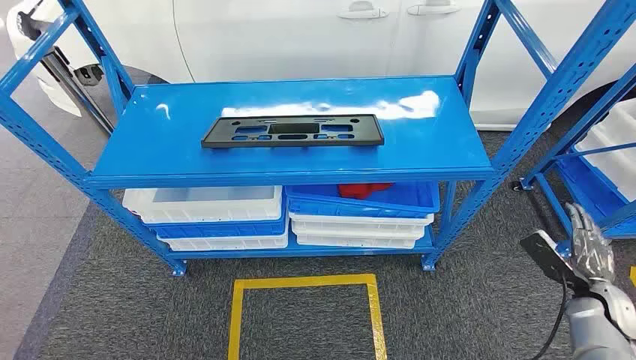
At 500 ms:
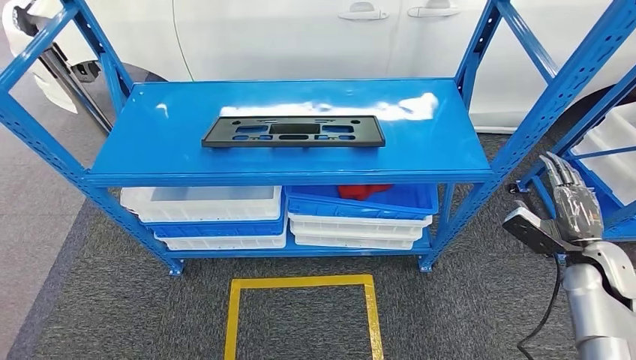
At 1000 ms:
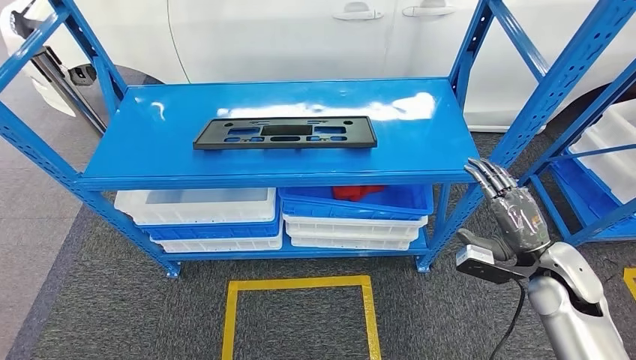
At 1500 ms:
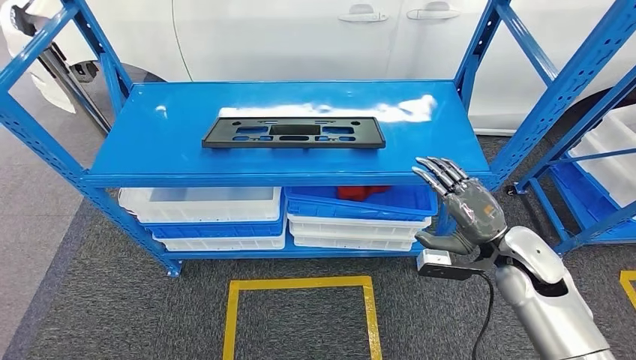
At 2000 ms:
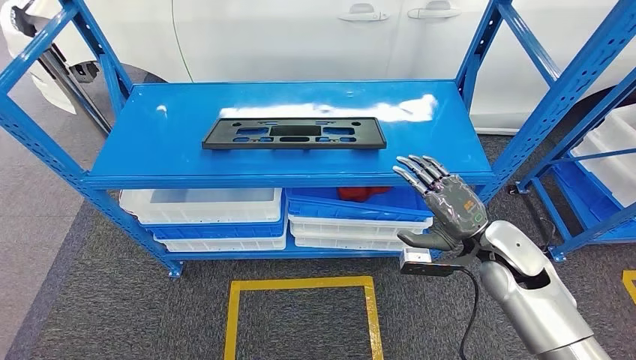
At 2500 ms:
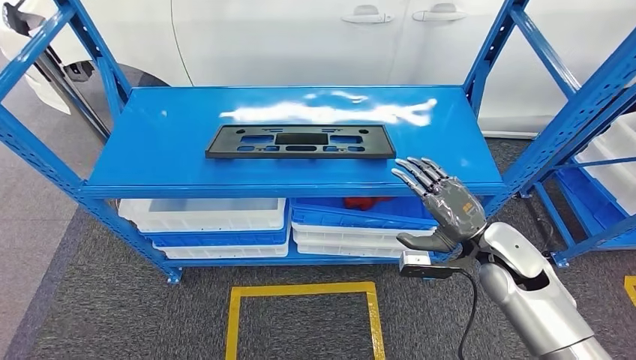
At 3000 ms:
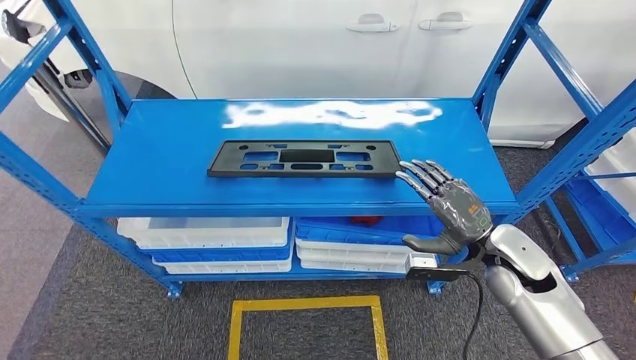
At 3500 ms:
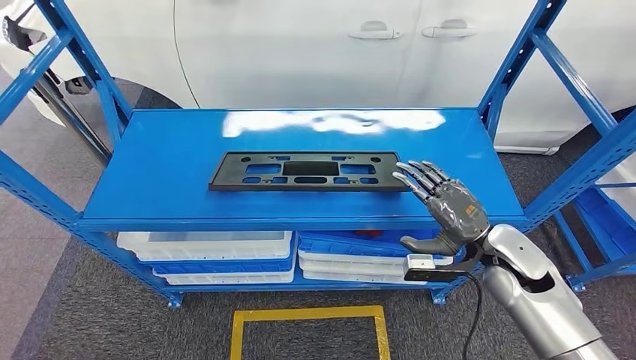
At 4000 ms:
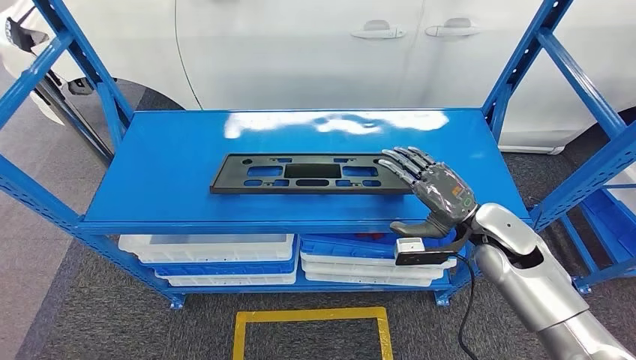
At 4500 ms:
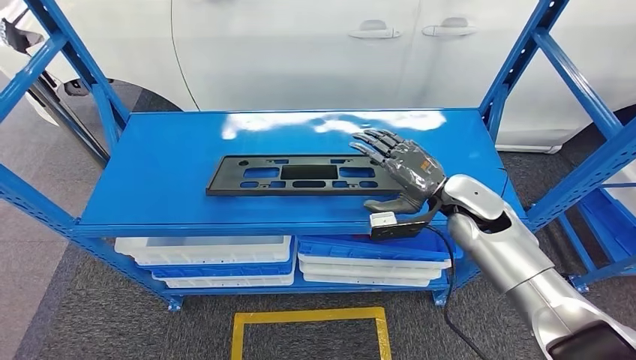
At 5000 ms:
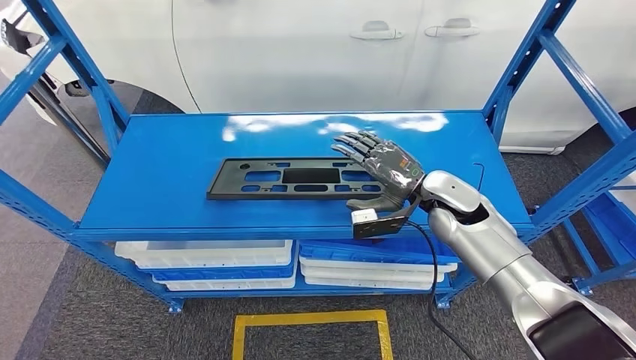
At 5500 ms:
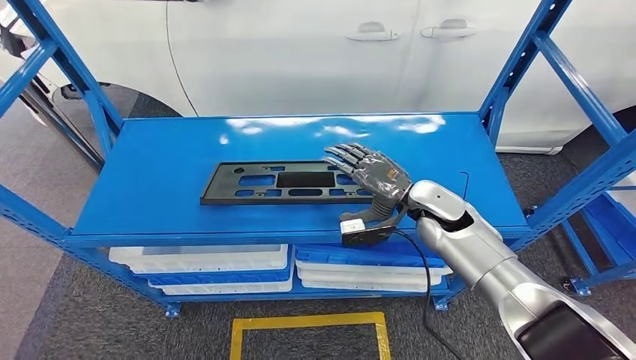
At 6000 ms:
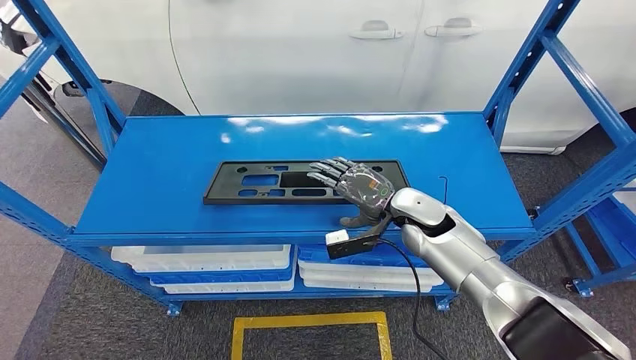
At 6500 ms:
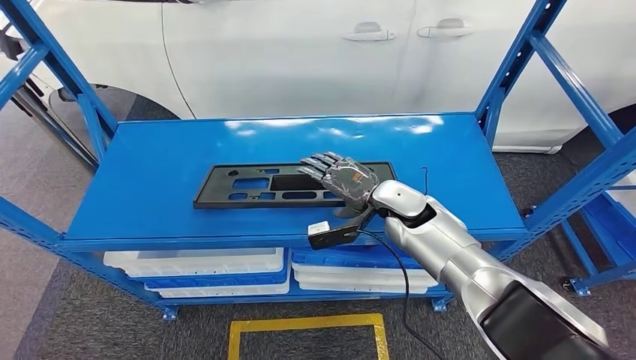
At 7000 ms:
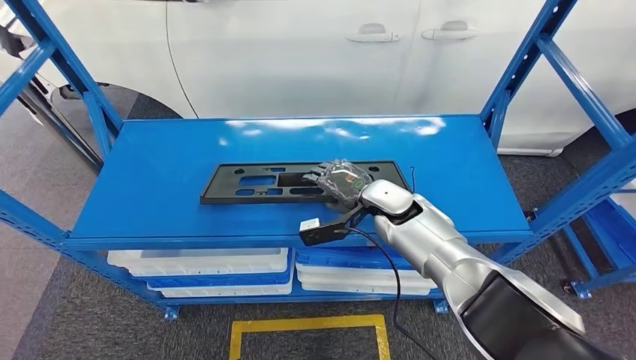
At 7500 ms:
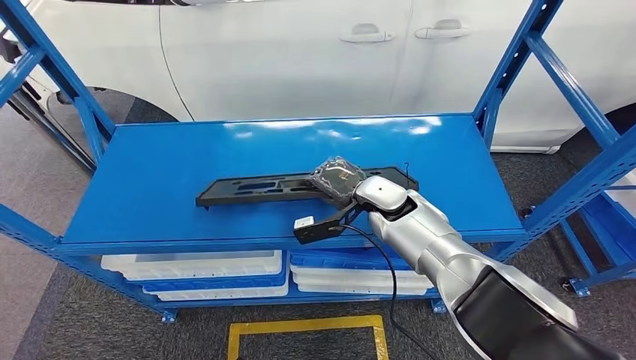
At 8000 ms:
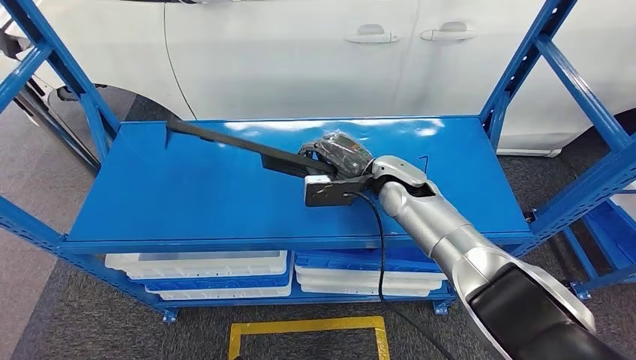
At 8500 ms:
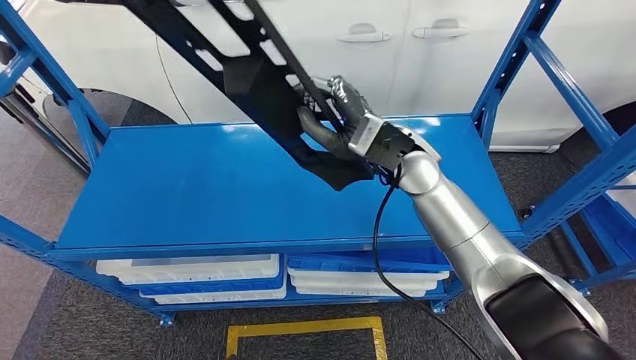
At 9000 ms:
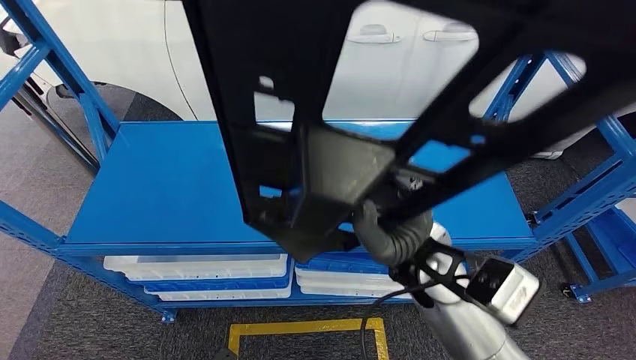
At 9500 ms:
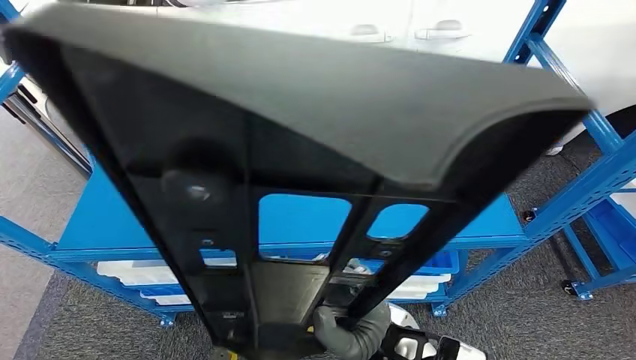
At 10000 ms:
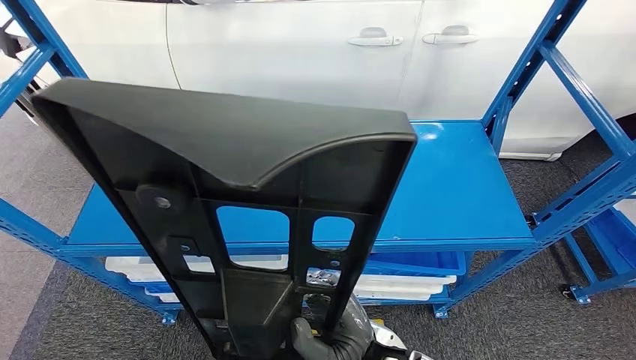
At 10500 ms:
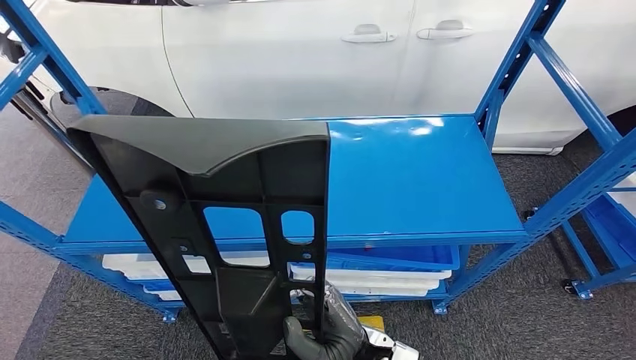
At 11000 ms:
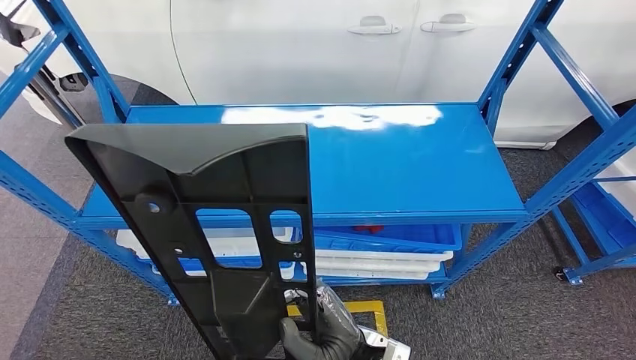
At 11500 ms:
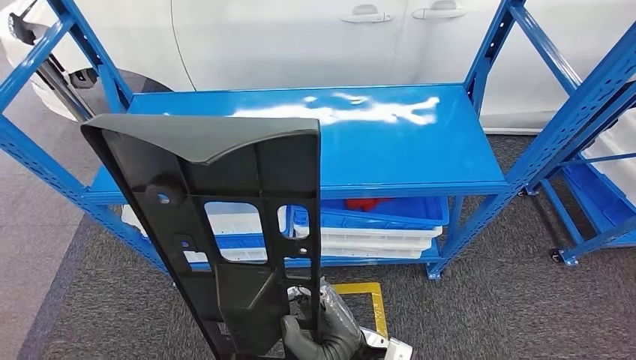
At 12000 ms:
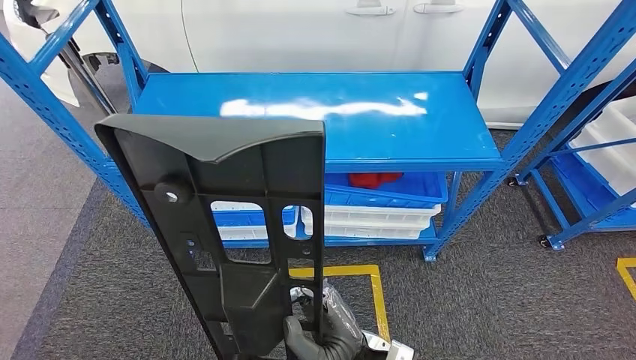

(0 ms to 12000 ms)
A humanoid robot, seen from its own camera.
Step, 0 ms - 9000 ms: Pick up the large material from the shelf.

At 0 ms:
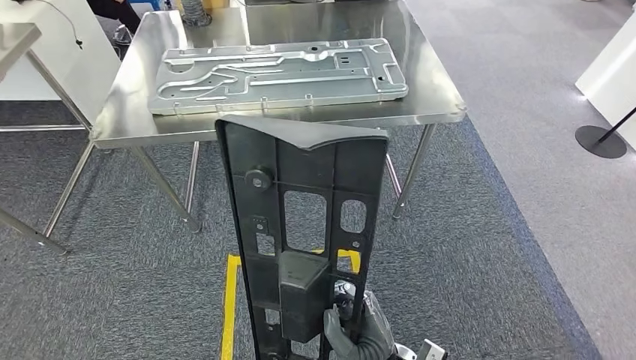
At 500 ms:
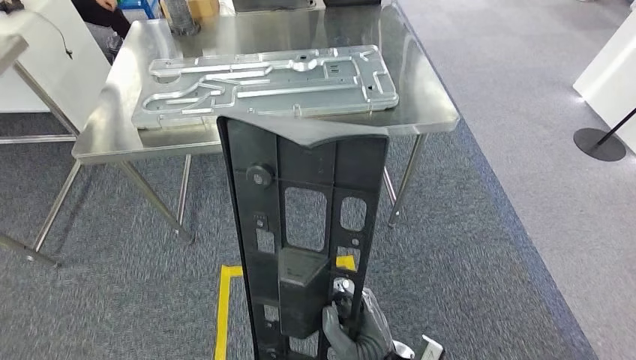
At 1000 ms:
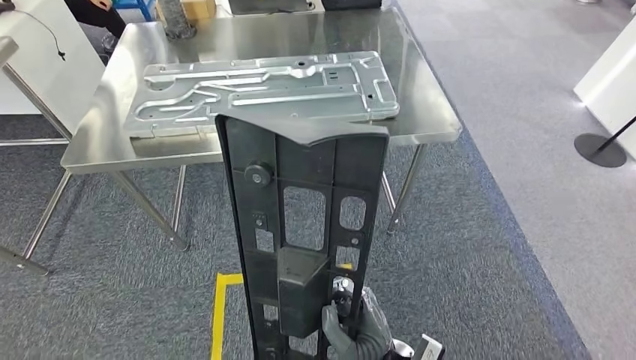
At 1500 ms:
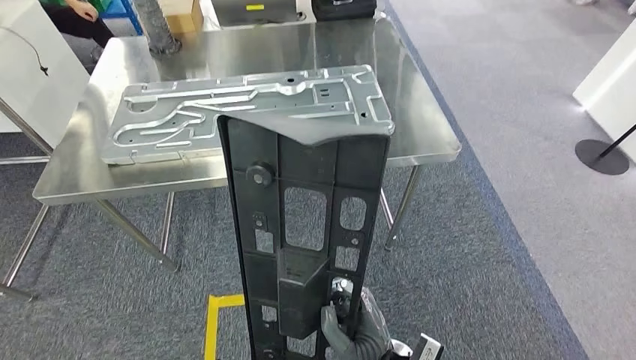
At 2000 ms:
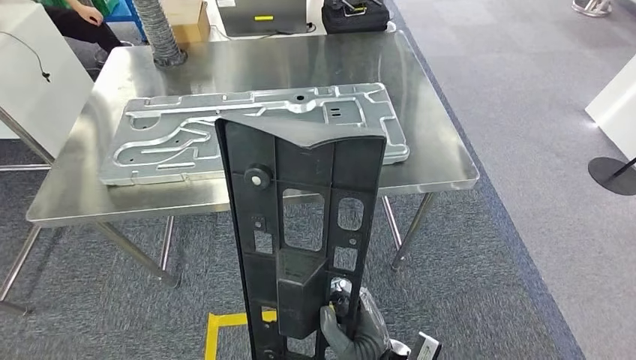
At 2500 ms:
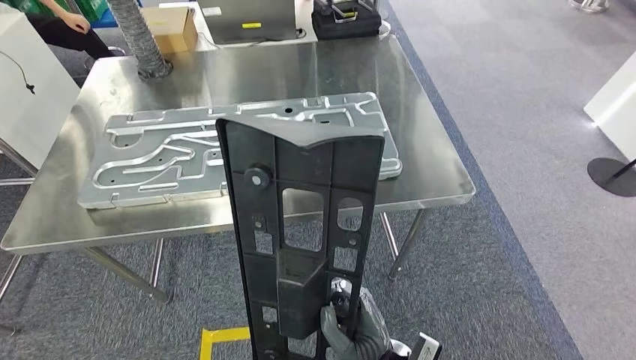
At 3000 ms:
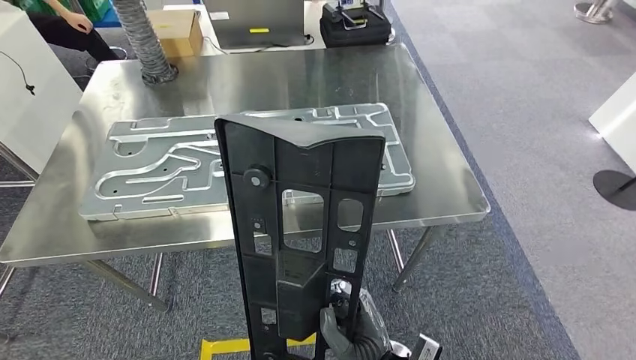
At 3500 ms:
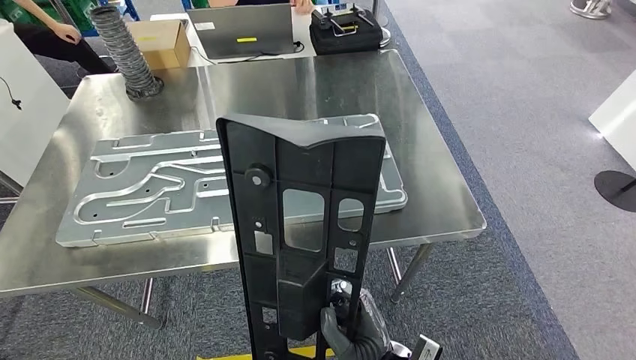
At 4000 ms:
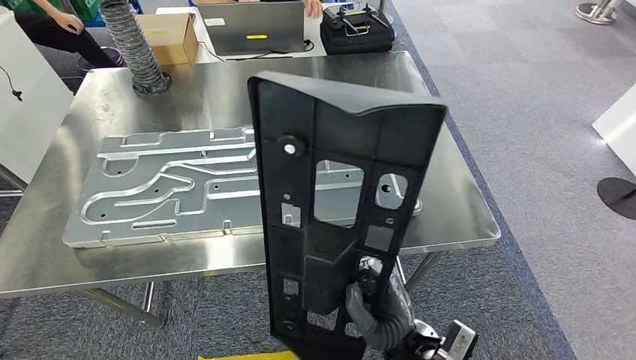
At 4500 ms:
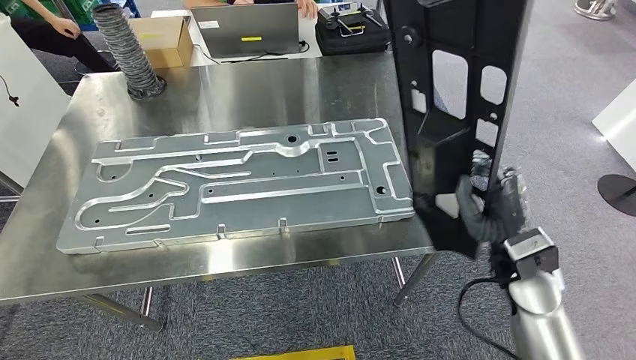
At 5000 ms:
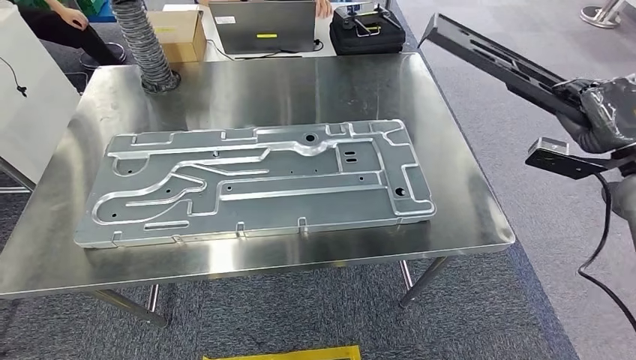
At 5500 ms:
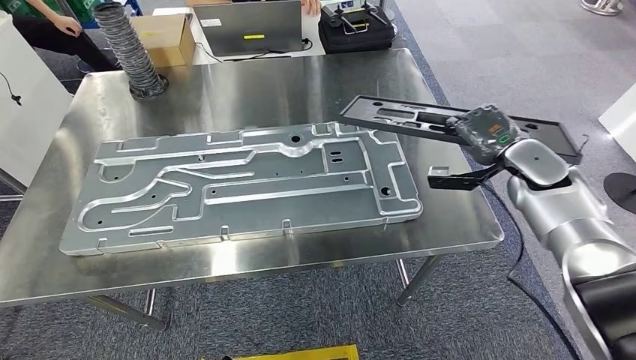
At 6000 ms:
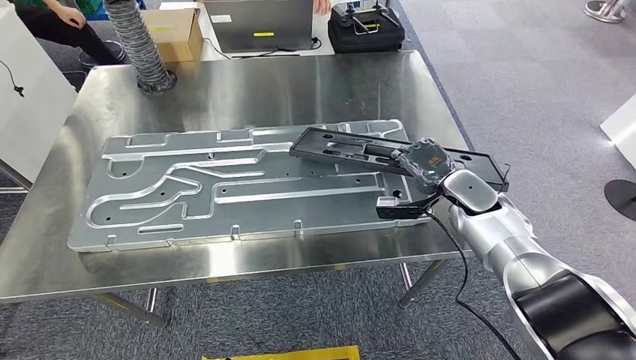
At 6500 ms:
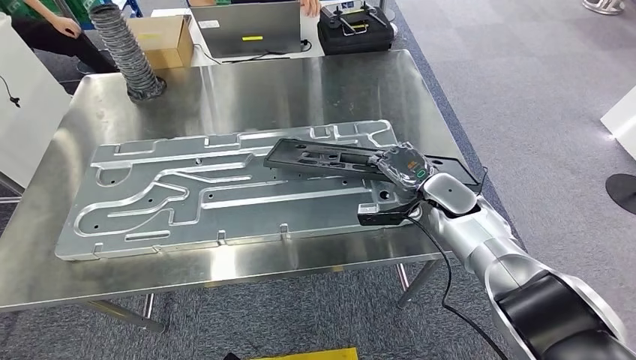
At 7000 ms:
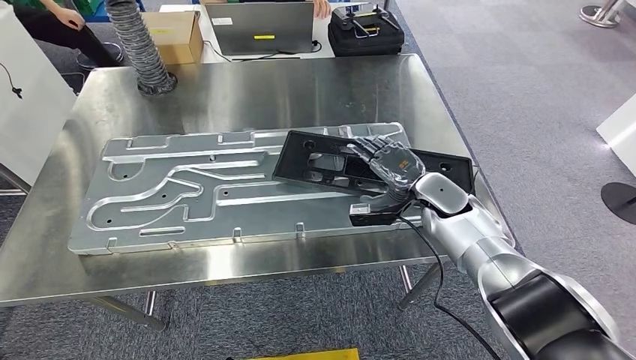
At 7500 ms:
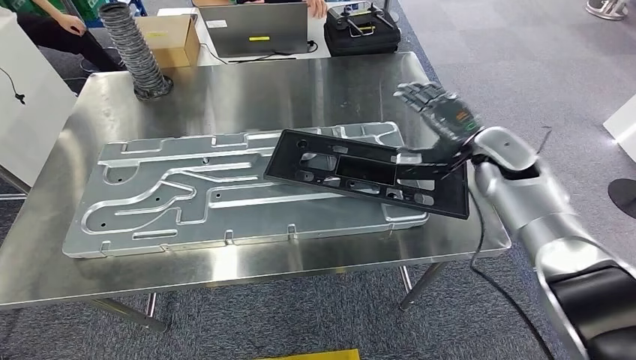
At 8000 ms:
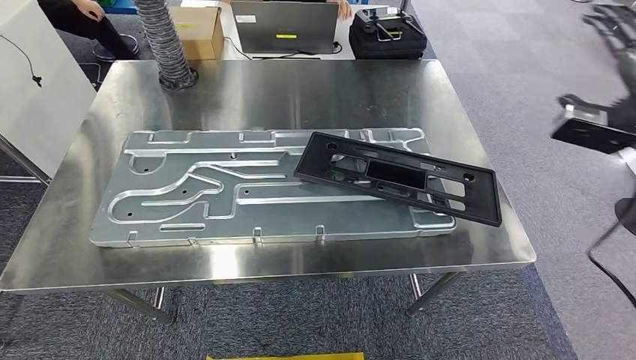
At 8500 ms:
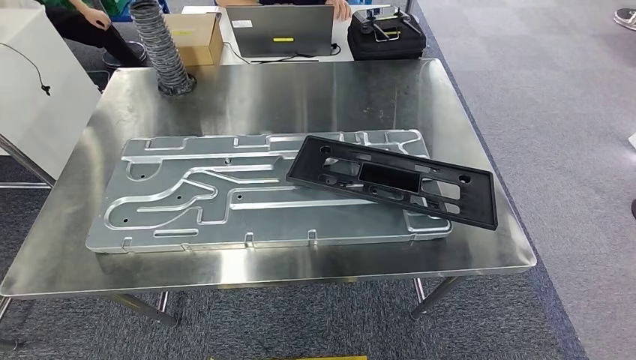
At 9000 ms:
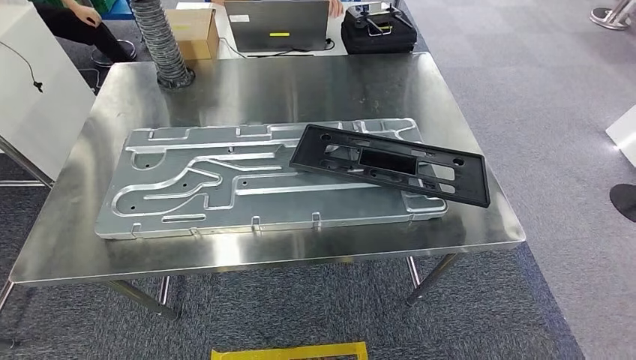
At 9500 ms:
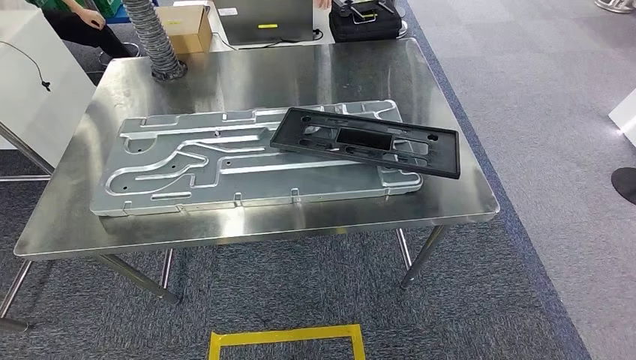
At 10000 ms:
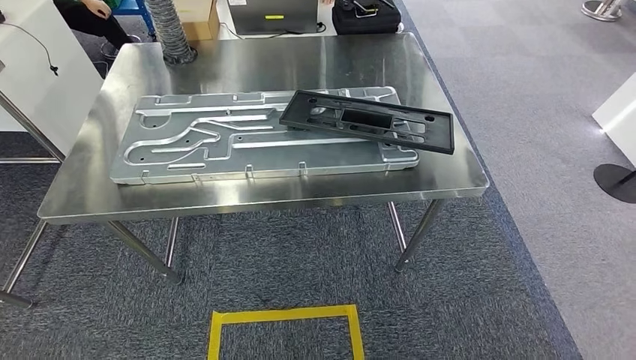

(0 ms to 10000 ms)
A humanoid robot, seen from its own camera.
Step, 0 ms - 5000 ms: Move the large material to the workbench.
Step, 5500 ms - 8500 ms: Insert the large material into the corresponding slot on the workbench.
